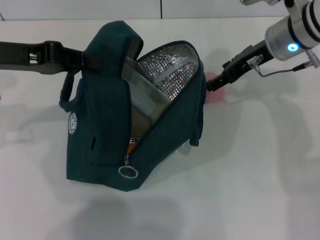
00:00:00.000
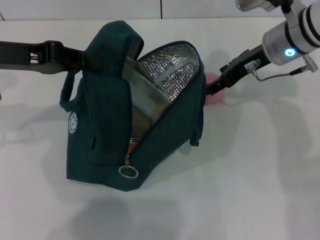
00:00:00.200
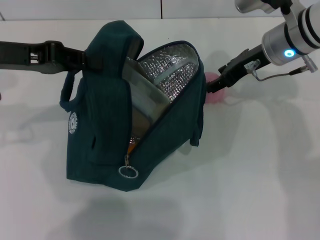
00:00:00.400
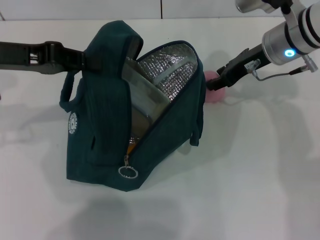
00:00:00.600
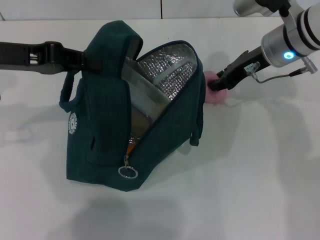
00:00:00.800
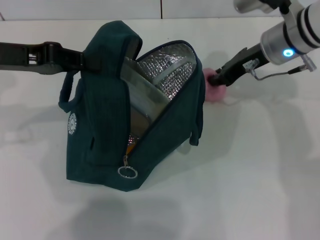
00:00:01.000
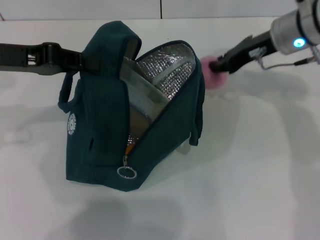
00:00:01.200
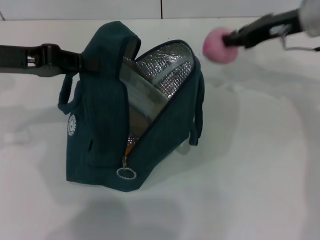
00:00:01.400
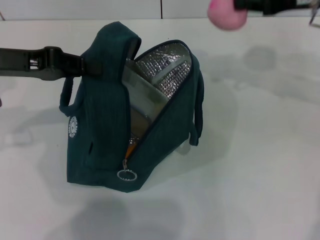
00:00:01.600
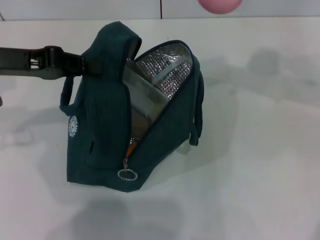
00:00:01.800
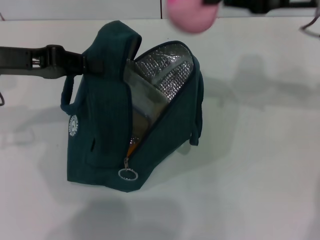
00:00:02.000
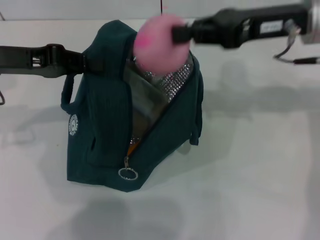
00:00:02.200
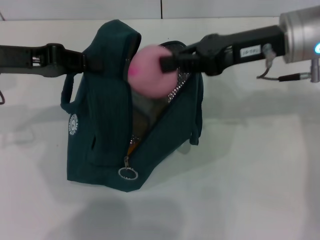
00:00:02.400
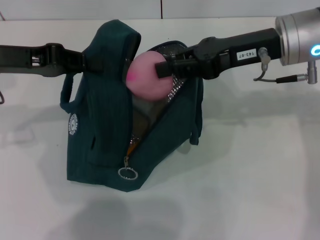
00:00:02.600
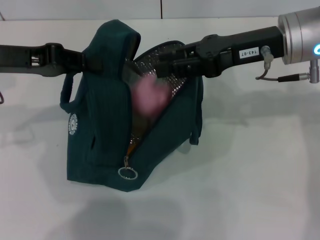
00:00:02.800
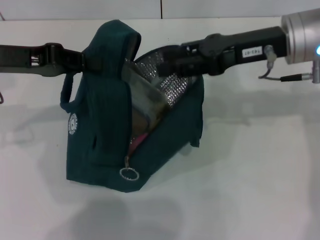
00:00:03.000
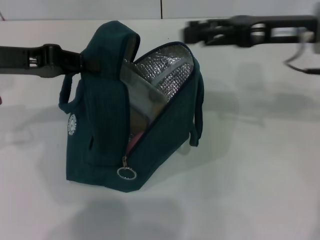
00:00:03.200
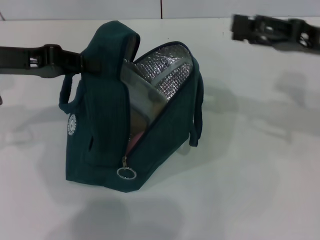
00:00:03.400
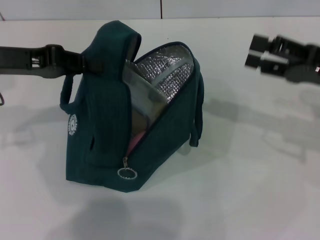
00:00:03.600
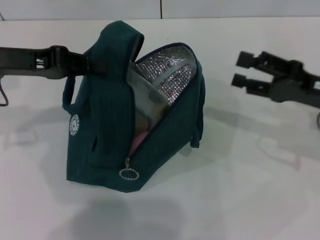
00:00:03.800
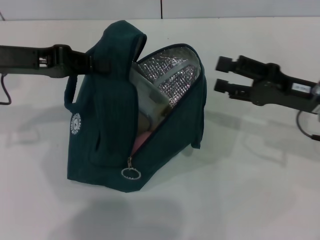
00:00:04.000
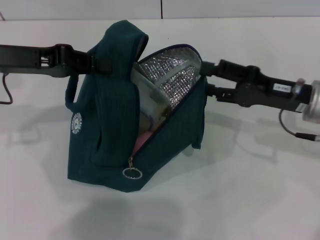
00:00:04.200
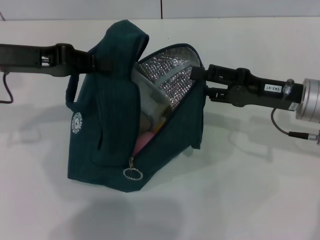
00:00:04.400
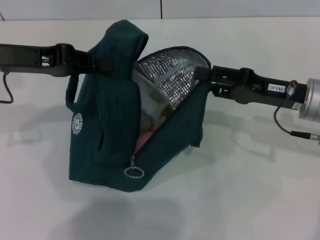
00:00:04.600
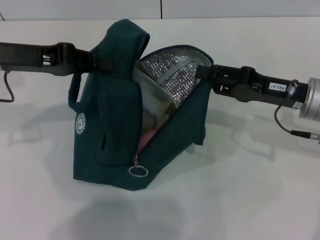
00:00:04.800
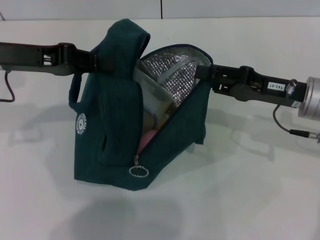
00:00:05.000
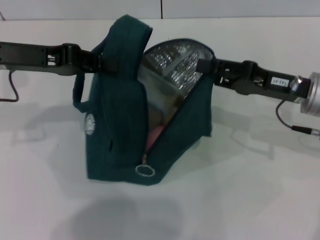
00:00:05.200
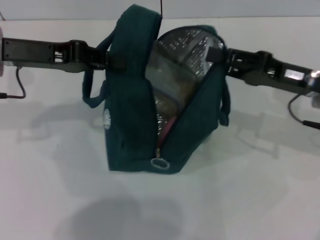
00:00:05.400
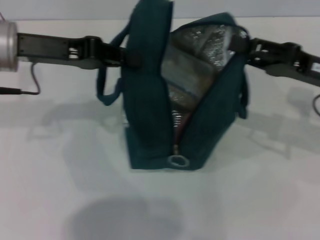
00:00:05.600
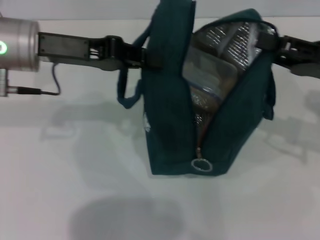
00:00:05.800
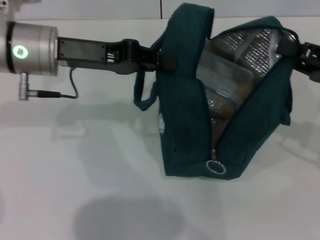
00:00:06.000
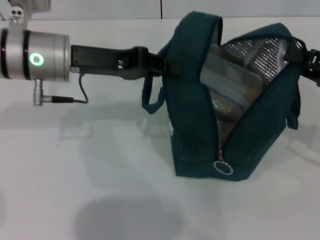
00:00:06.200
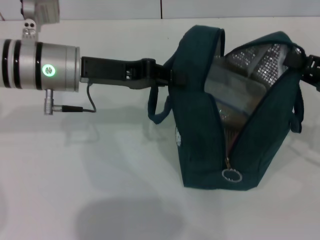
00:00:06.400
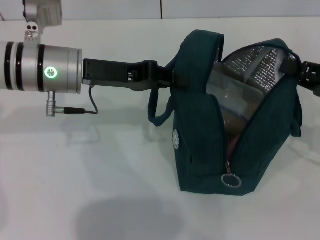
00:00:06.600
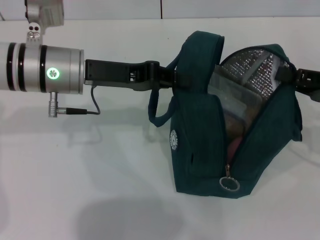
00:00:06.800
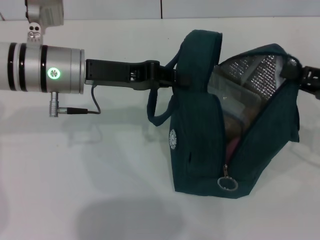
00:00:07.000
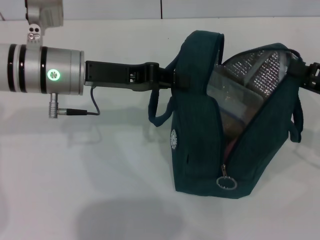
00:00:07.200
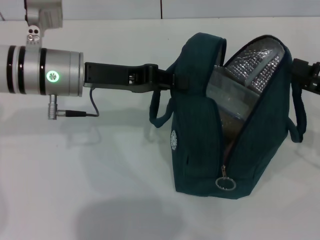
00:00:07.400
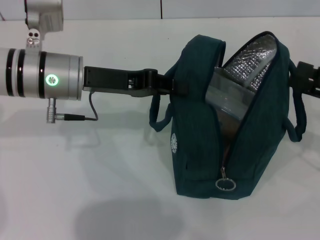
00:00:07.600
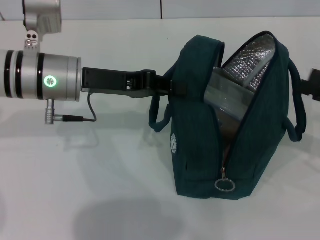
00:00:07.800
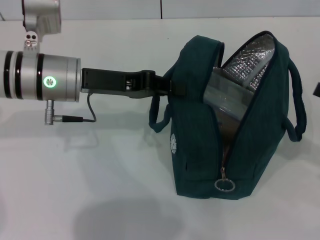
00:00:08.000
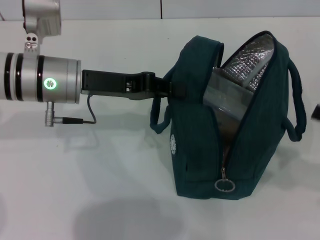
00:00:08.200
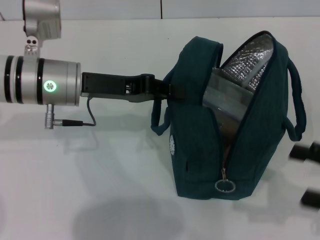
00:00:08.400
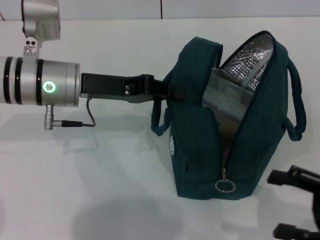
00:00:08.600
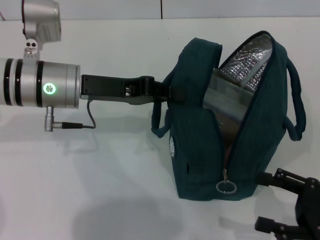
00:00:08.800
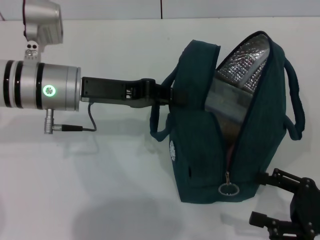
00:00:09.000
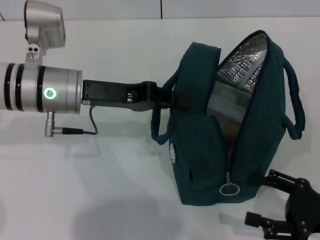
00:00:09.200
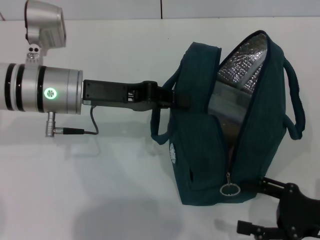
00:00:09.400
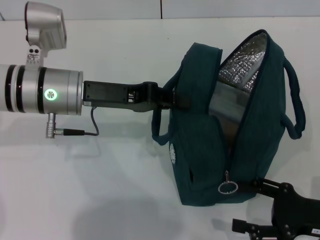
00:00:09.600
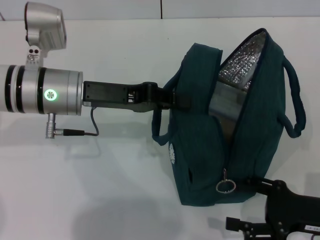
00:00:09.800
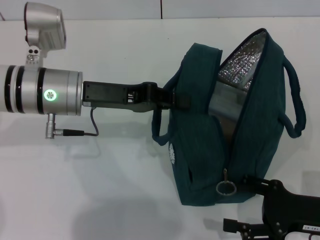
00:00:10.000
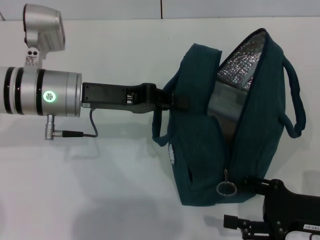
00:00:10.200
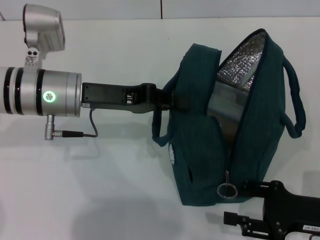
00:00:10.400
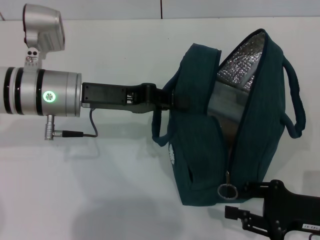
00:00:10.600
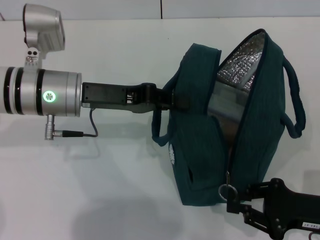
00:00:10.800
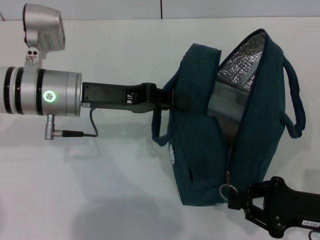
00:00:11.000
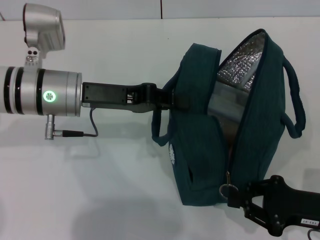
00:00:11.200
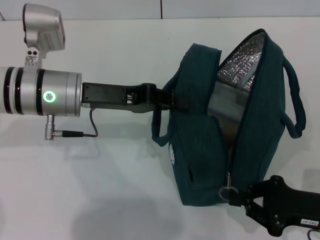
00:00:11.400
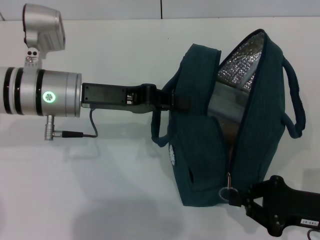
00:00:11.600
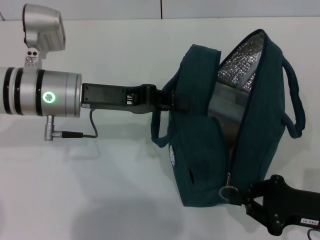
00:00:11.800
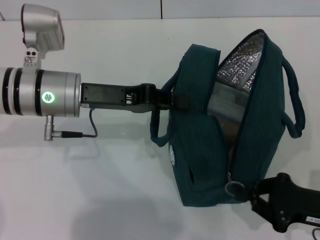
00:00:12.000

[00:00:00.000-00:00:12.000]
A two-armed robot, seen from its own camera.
Step, 00:00:03.000 to 00:00:07.600: Hold the lunch bag with your right hand.
00:00:00.000 to 00:00:01.600: The right gripper heads to the right and upward, covering about 10 cm, and closes its fingers.
00:00:01.600 to 00:00:03.000: The right gripper heads to the left, covering roughly 5 cm.
00:00:03.000 to 00:00:04.400: The right gripper shifts some 10 cm downward, and opens.
00:00:04.400 to 00:00:06.000: The two grippers go some 10 cm to the right. The right gripper closes its fingers.
00:00:06.000 to 00:00:07.600: The right gripper opens its fingers.
00:00:07.600 to 00:00:09.000: The right gripper moves backward and downward, about 15 cm.
00:00:09.000 to 00:00:10.400: The grippers make only small movements.
00:00:10.400 to 00:00:12.000: The right gripper closes its fingers.

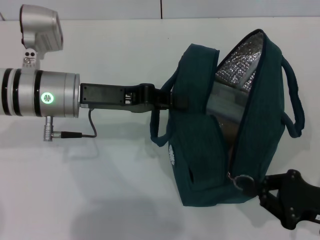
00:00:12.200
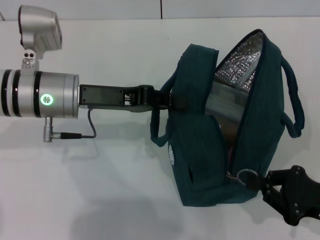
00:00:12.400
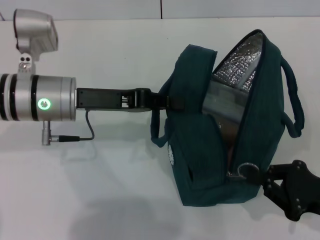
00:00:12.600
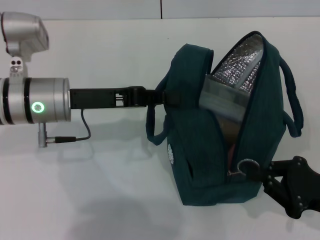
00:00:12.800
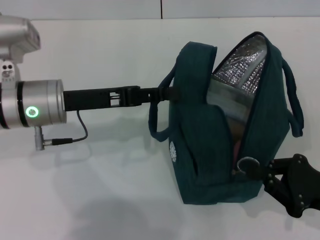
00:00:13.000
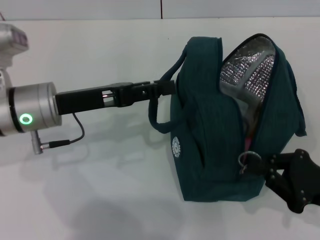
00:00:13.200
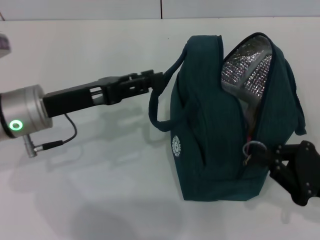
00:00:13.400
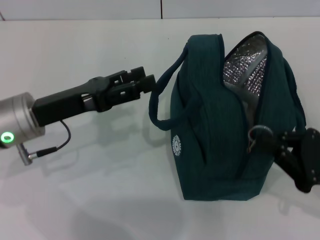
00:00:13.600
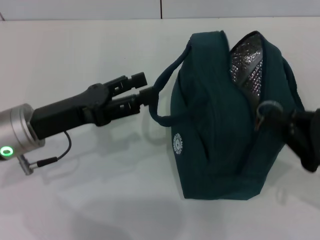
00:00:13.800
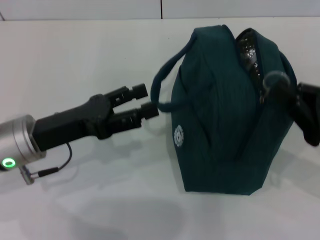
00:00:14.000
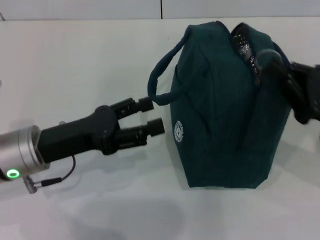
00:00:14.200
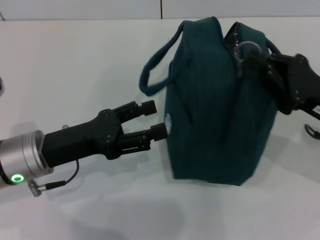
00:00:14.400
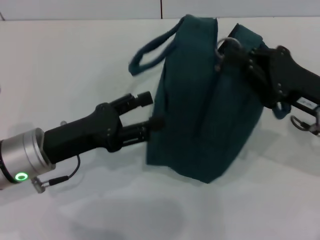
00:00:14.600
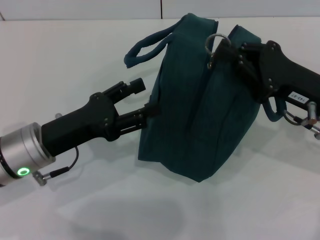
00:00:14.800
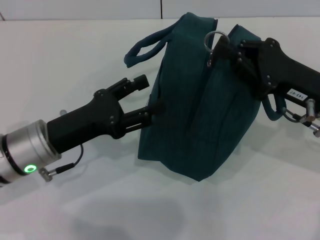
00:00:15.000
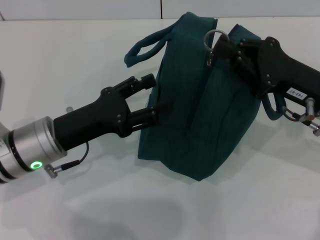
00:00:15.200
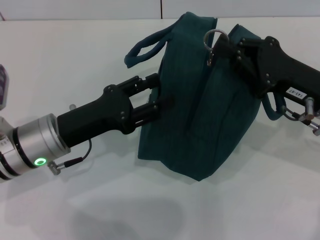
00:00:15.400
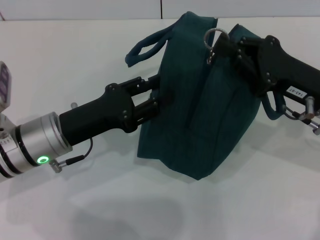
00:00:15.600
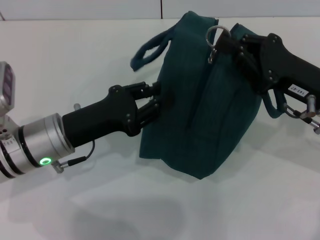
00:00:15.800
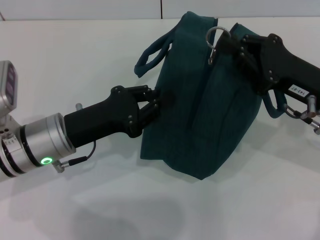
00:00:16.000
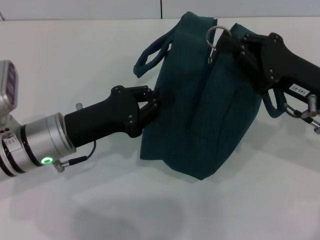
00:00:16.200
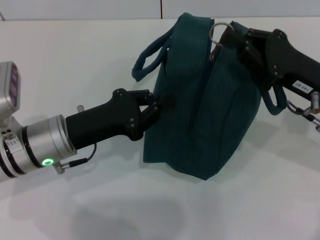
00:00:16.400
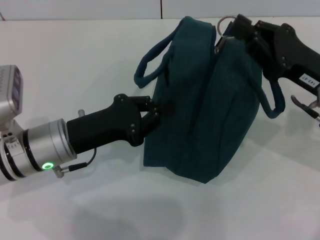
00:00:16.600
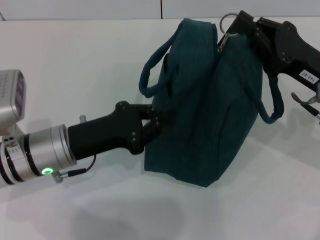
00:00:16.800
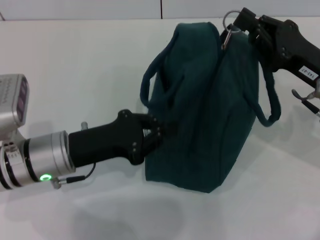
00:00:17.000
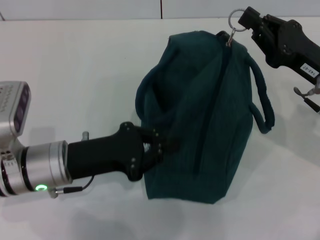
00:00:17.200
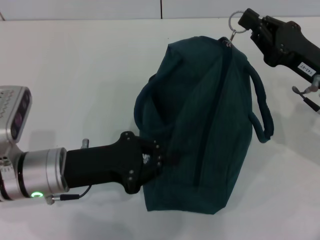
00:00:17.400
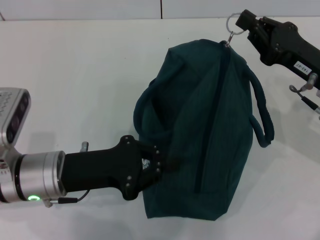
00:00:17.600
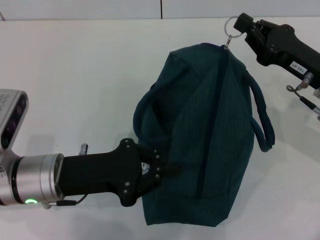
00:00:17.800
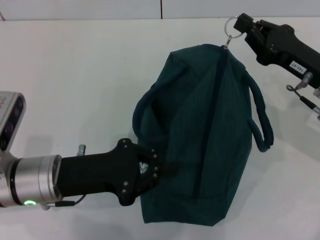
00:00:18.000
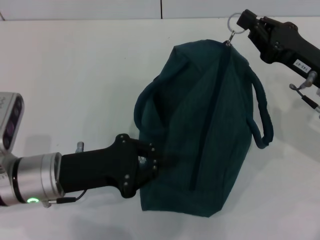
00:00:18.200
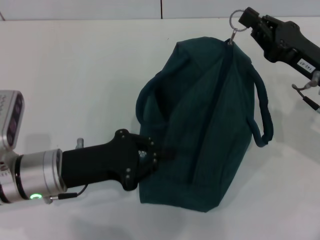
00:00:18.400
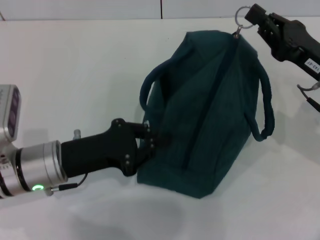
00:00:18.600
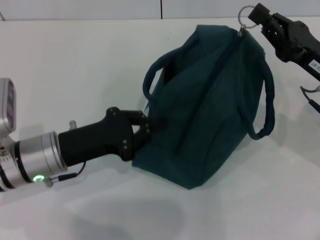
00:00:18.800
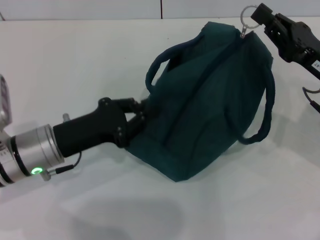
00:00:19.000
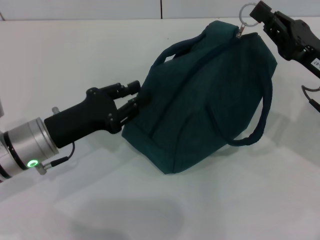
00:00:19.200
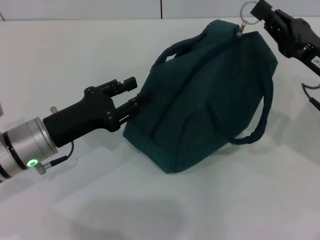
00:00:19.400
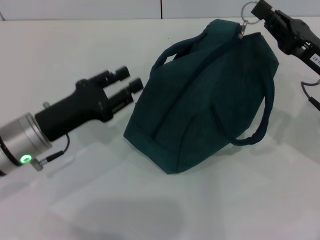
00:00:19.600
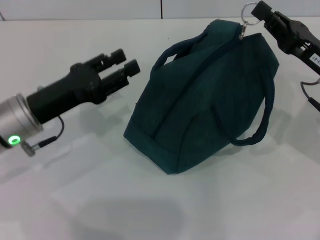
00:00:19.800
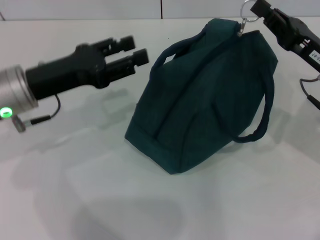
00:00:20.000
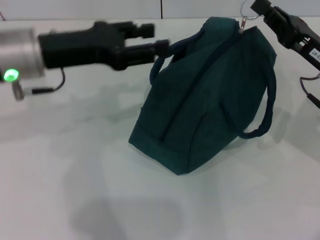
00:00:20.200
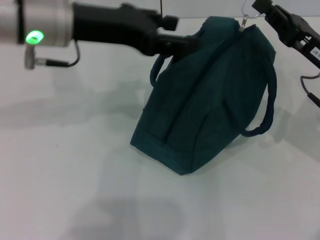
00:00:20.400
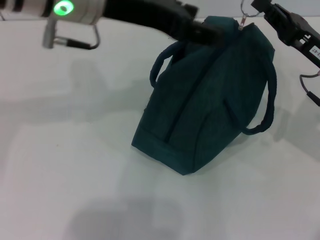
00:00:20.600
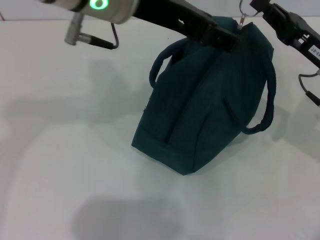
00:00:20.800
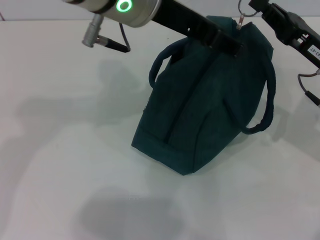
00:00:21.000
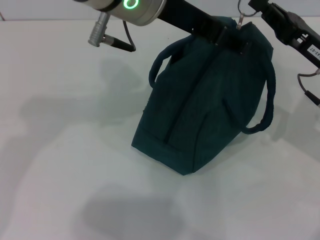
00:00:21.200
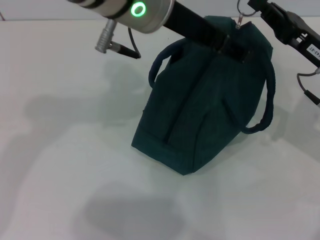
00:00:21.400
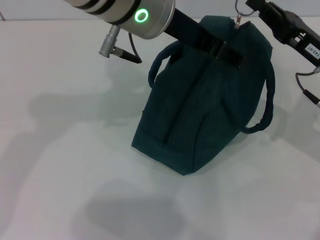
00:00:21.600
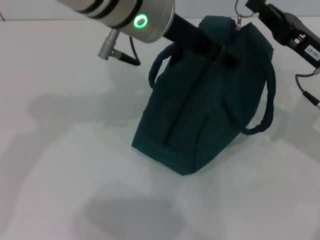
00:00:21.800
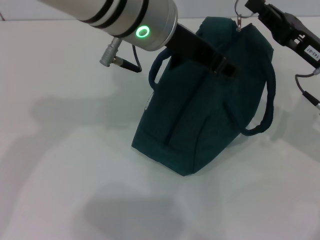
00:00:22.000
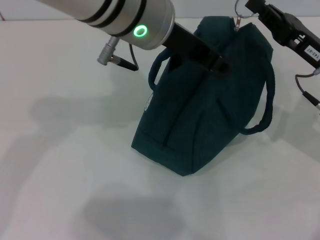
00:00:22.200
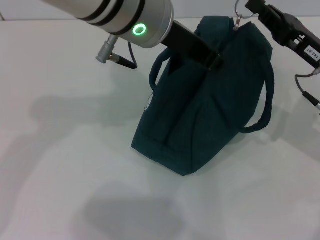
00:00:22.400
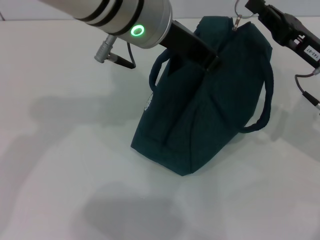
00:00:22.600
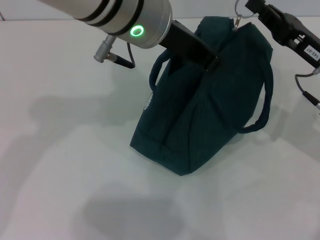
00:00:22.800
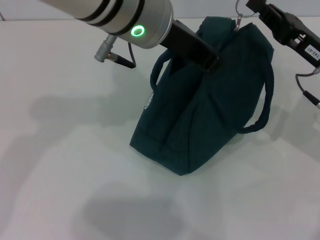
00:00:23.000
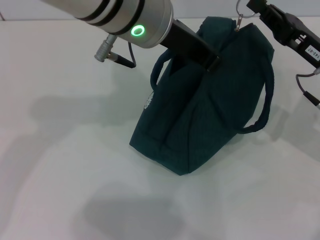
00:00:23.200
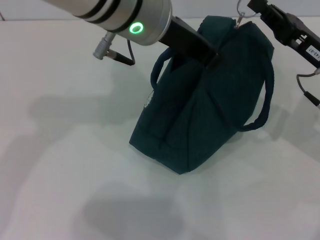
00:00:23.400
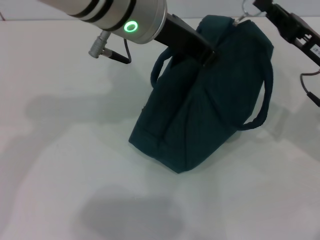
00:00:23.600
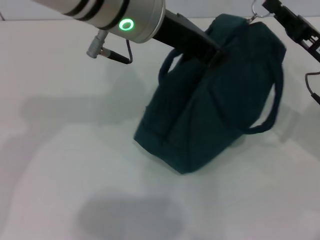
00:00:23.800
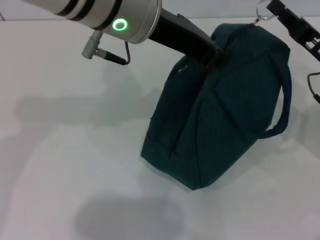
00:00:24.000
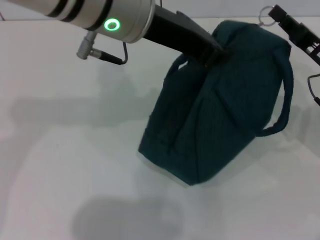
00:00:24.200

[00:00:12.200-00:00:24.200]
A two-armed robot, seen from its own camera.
00:00:12.200 to 00:00:13.800: The left gripper moves backward, about 5 cm, and opens its fingers; the right gripper ends up some 5 cm from where it was.
00:00:13.800 to 00:00:15.200: The right gripper goes some 10 cm forward and to the left.
00:00:15.200 to 00:00:16.600: The left gripper closes.
00:00:18.200 to 00:00:19.800: The left gripper moves approximately 5 cm, and opens.
00:00:19.800 to 00:00:21.200: The left gripper is displaced upward and to the right by roughly 25 cm, and opens up.
00:00:21.200 to 00:00:22.600: The left gripper closes its fingers.
00:00:22.600 to 00:00:24.200: The grippers stay close to where they were, moving slightly.
